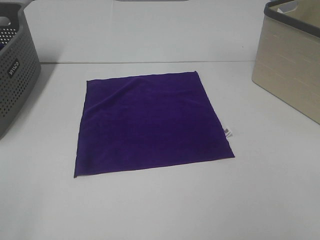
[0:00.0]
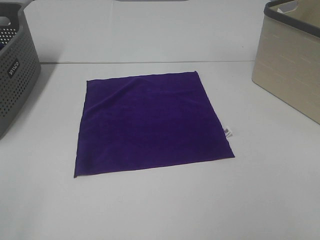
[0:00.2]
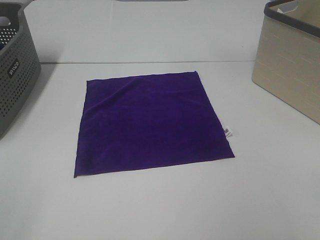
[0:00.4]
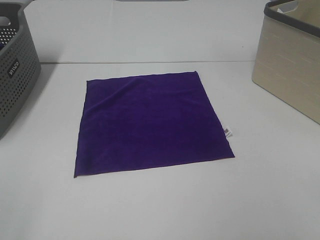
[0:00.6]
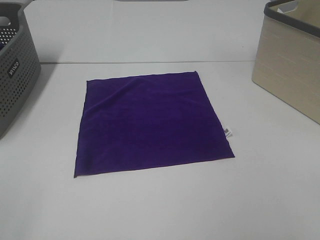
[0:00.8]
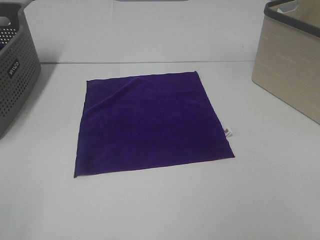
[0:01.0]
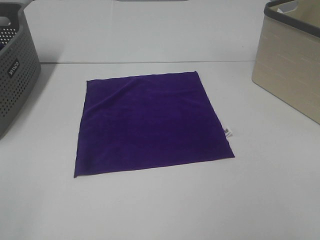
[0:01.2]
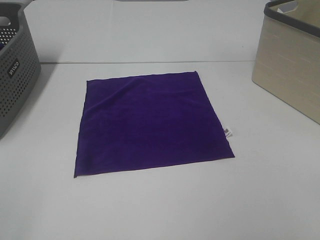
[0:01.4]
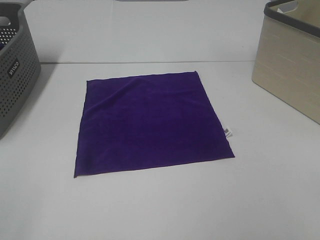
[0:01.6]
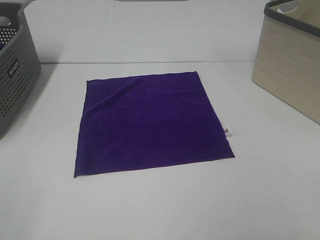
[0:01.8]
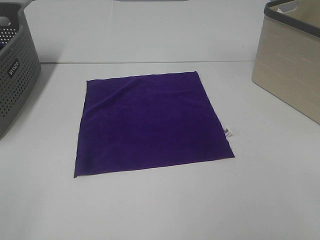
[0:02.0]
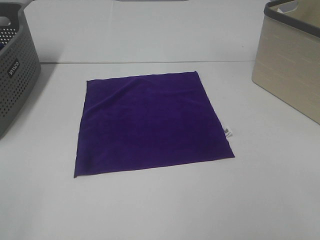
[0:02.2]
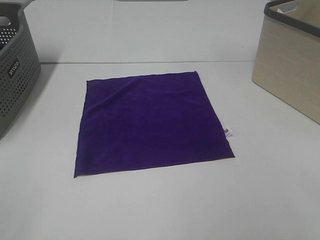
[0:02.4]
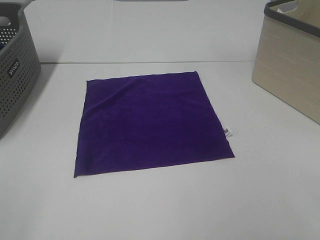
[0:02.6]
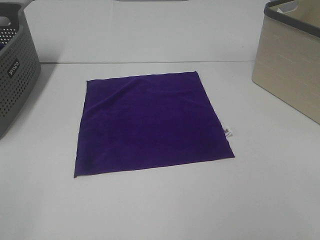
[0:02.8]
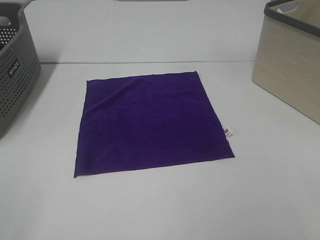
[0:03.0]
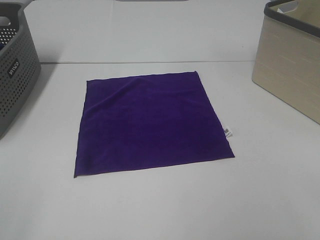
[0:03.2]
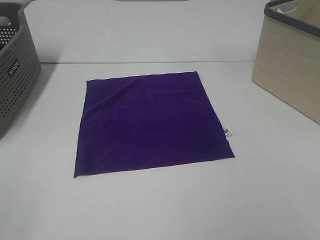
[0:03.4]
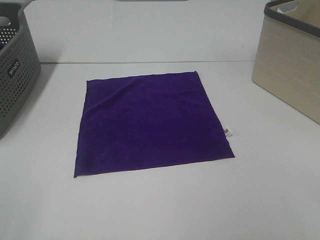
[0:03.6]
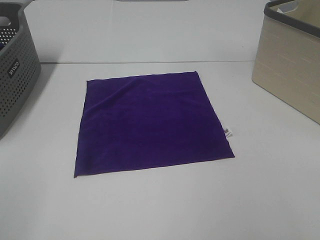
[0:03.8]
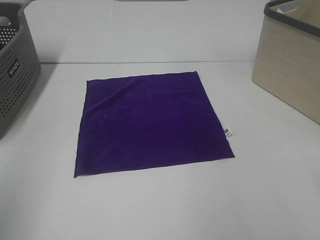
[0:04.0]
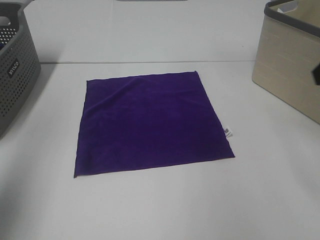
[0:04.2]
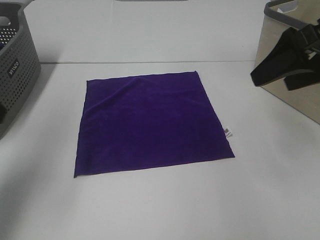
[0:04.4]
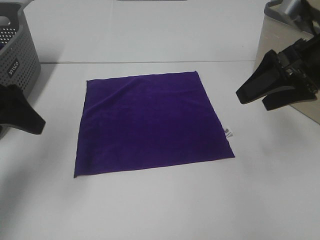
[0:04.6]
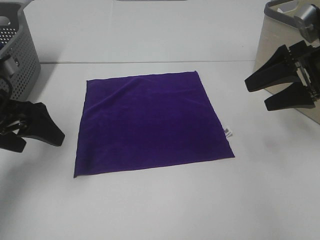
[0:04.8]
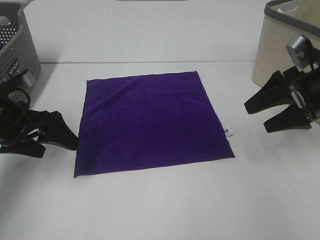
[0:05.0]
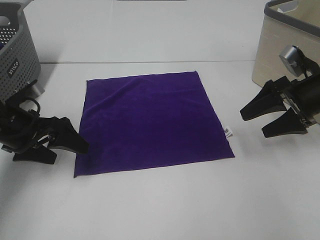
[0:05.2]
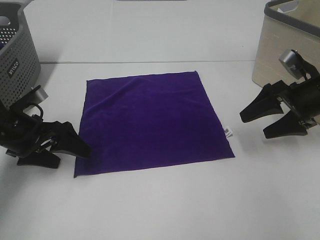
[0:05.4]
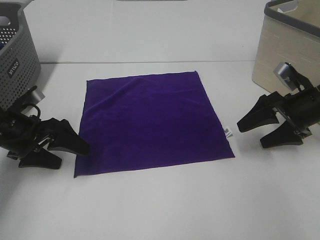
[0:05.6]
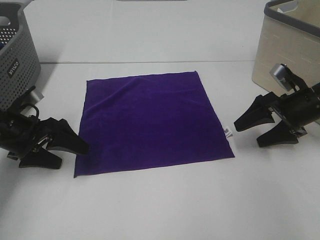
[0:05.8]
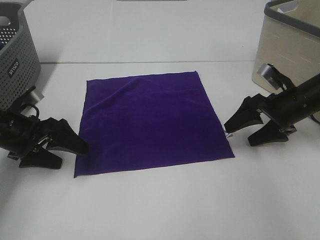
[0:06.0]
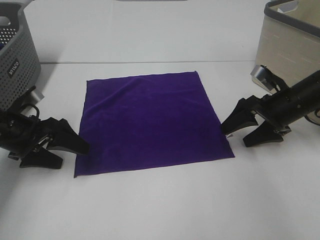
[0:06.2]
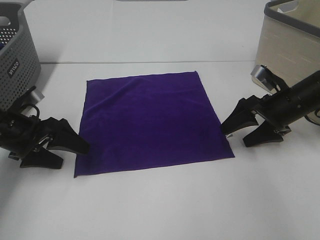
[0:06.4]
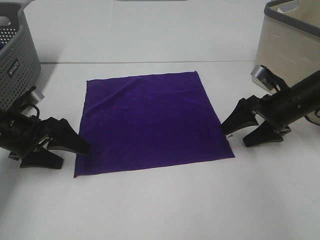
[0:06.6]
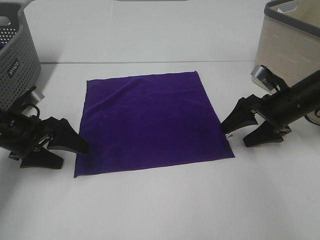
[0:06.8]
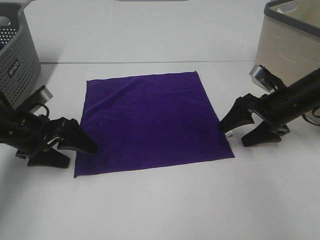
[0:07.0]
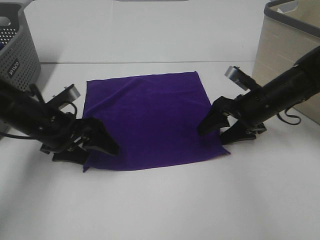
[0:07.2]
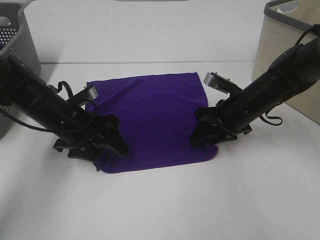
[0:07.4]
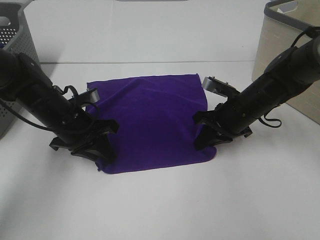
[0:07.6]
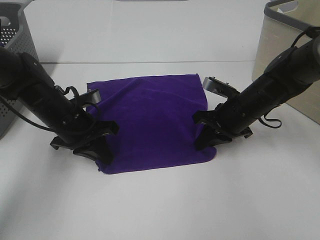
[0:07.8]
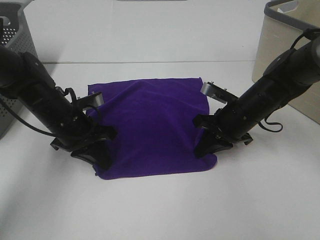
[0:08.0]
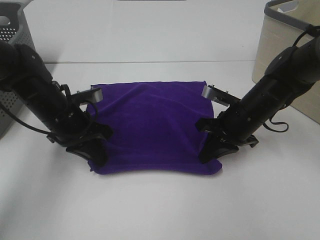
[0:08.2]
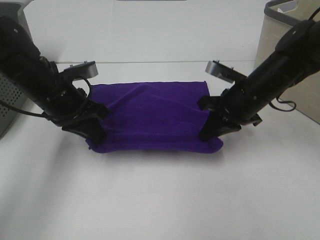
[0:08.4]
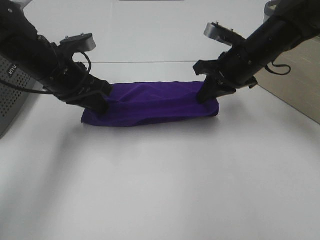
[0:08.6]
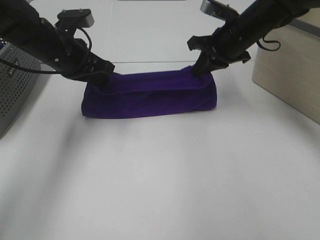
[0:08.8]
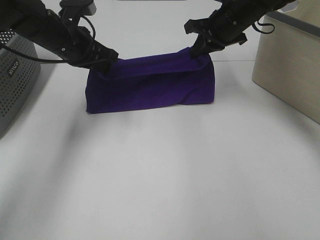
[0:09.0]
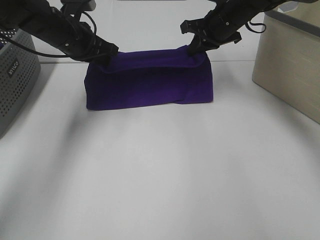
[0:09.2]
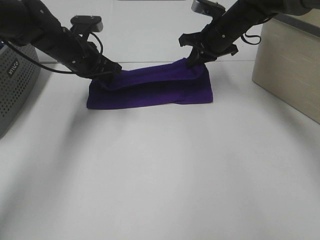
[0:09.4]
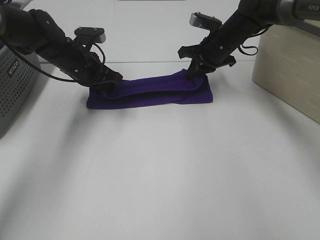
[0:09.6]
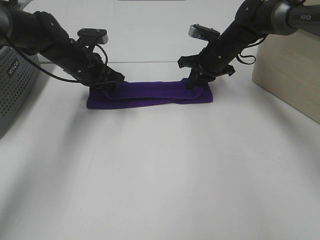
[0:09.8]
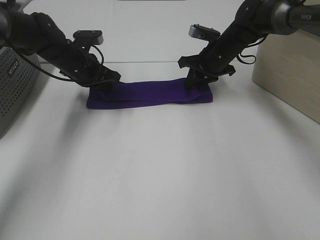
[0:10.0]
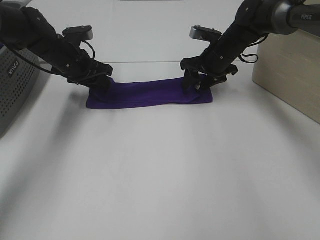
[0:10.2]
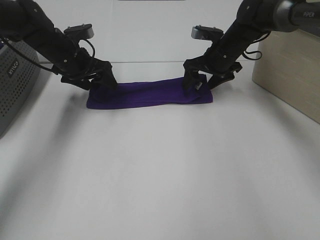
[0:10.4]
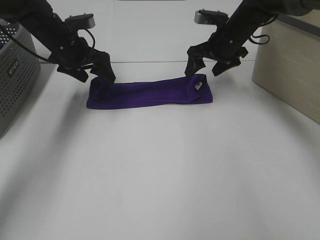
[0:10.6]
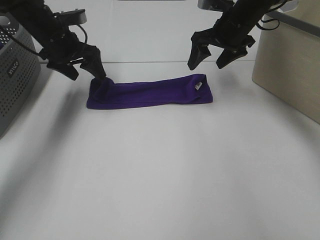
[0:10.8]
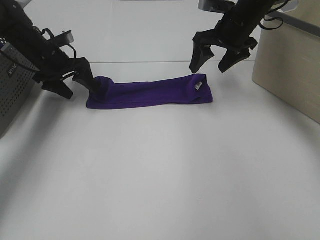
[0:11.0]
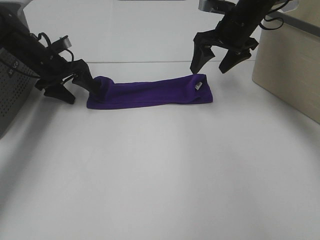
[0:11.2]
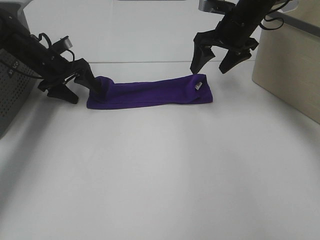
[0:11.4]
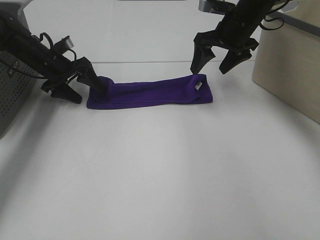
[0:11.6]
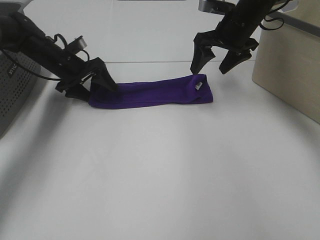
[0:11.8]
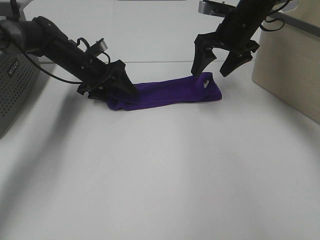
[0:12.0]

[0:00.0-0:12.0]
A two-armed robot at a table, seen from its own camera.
Task of the whole recording: Fold towels.
Step, 0:00.0 to 0:07.8: Left hand: grab the bottom left corner of purple towel.
Step, 0:00.0 to 0:07.8: Right hand: grab the bottom right corner of purple towel.
Step, 0:08.0 to 0:10.0: Left hand: fold the purple towel up.
Step, 0:08.0 to 0:10.0: Right hand: fold the purple towel up.
0:00.0 to 0:03.0: Neither gripper changes place.
0:03.0 to 0:04.4: Both grippers travel together forward, approximately 25 cm.
0:04.4 to 0:06.0: Both grippers travel together downward and forward, approximately 20 cm.
0:06.0 to 0:07.6: The right gripper moves to the left, about 10 cm, and closes up. The left gripper is displaced to the right by approximately 10 cm, and closes up.
0:07.6 to 0:09.0: The grippers both shift upward and forward by some 15 cm.
0:09.0 to 0:10.4: The left gripper travels downward and forward by some 10 cm, and opens up, while the right gripper is displaced downward by roughly 10 cm, and opens up.
0:10.4 to 0:12.0: The left gripper heads downward, covering approximately 5 cm; the right gripper travels upward by approximately 10 cm.

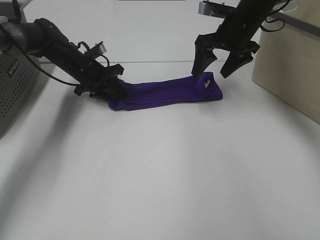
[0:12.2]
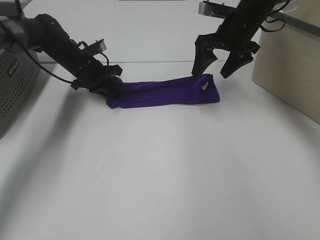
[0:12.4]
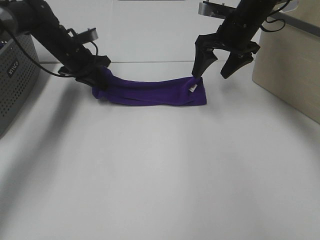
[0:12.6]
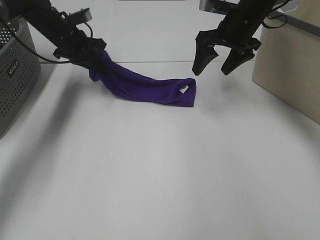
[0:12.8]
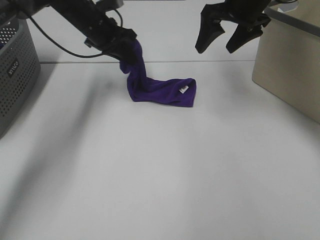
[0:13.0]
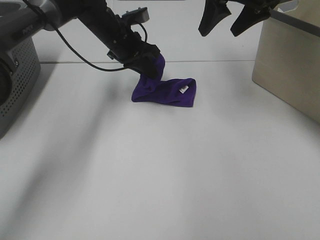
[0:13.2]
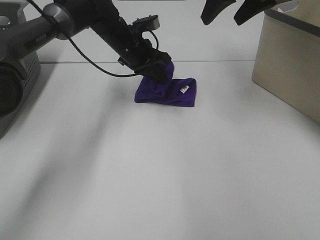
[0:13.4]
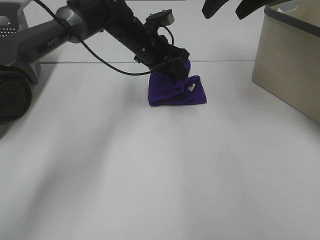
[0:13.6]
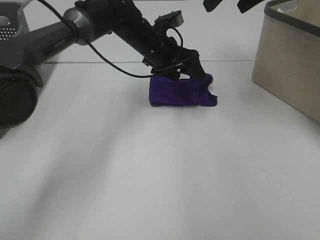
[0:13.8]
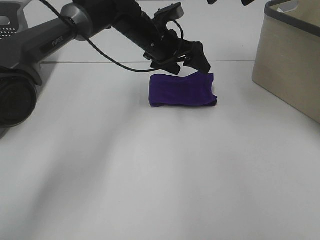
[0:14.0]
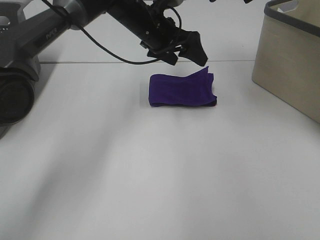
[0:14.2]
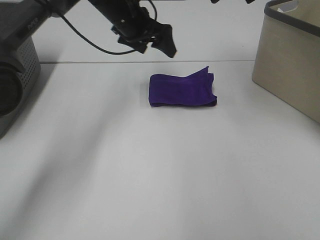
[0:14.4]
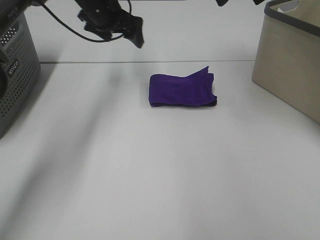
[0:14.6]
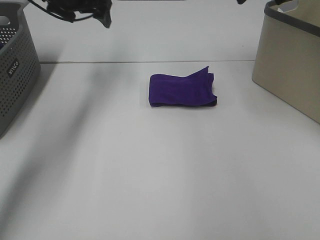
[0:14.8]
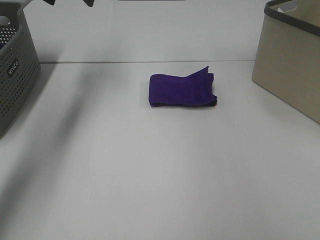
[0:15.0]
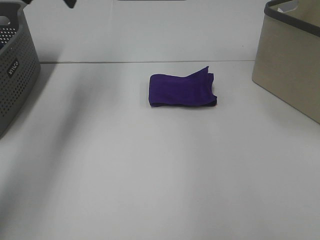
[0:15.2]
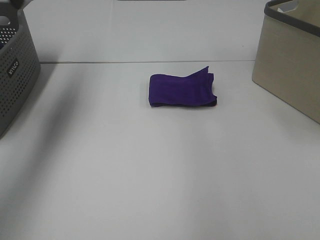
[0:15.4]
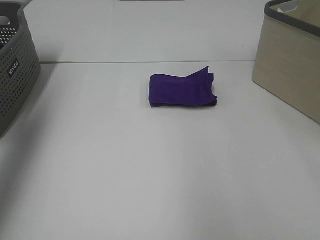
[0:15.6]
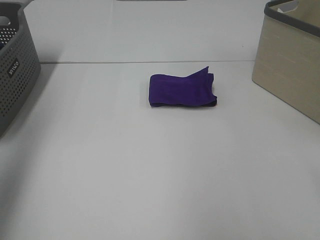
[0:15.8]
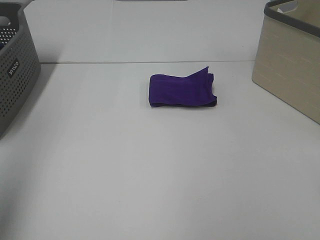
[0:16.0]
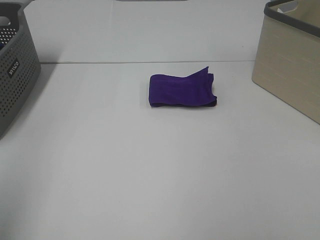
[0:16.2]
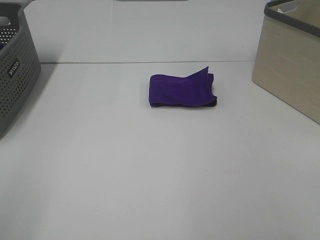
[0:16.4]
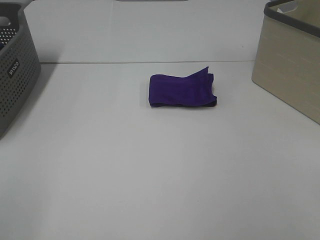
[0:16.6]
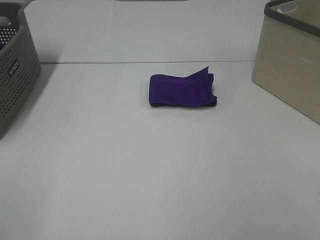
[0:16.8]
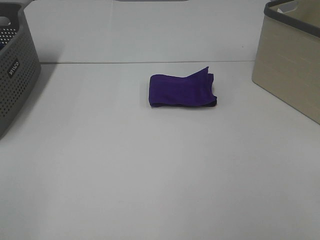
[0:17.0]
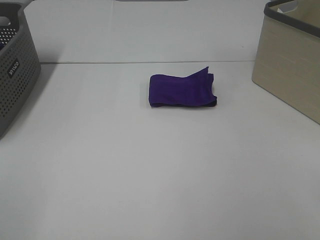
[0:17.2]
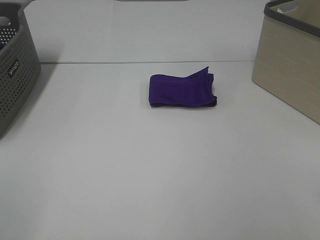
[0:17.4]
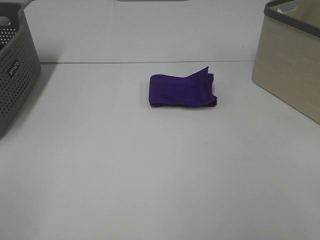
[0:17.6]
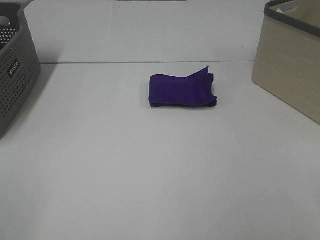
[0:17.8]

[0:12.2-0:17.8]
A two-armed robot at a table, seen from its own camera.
Task of the whole recording: Fold towels.
0:12.2 to 0:13.6: The left gripper moves to the right and upward, approximately 15 cm, while the right gripper goes some 15 cm upward.
0:13.6 to 0:15.0: The left gripper goes roughly 25 cm to the left and upward, and opens its fingers. Meanwhile the right gripper moves to the right, roughly 10 cm.
0:15.0 to 0:16.4: The two grippers go roughly 50 cm backward.
